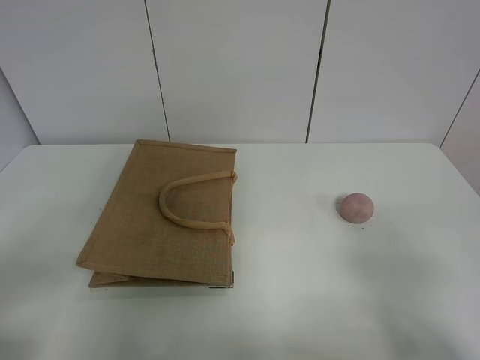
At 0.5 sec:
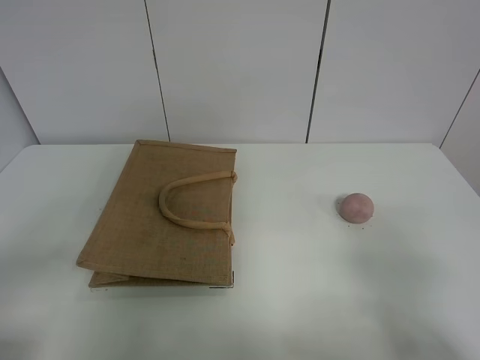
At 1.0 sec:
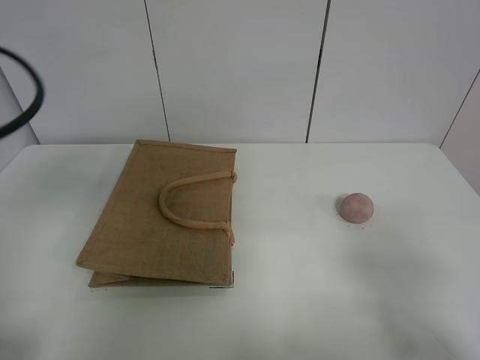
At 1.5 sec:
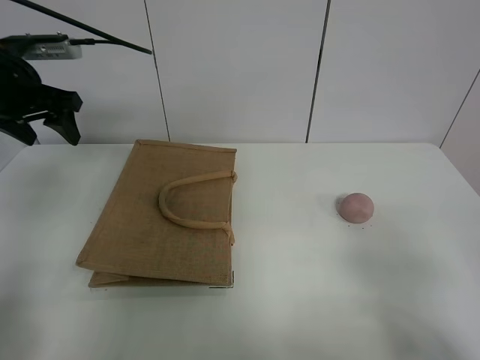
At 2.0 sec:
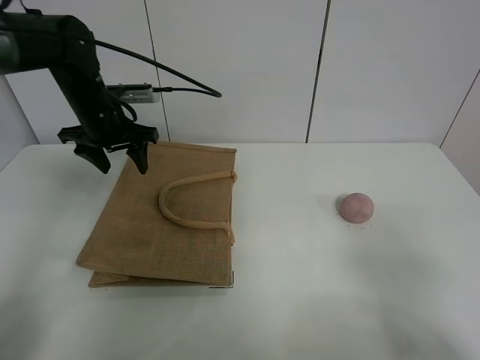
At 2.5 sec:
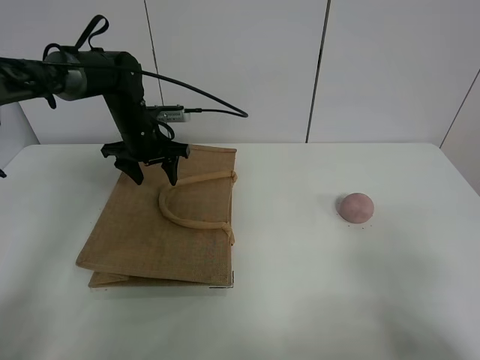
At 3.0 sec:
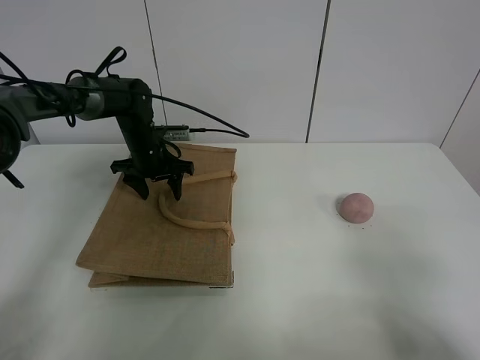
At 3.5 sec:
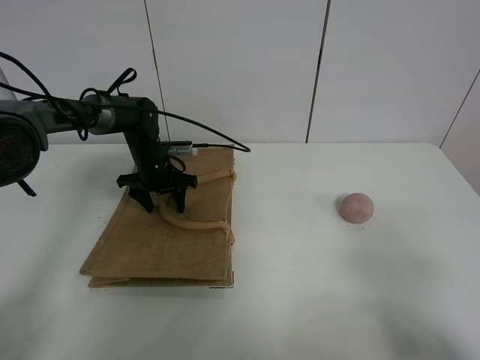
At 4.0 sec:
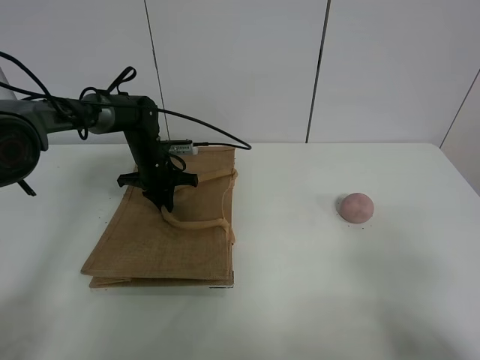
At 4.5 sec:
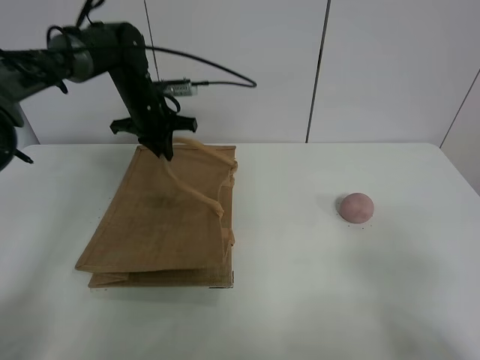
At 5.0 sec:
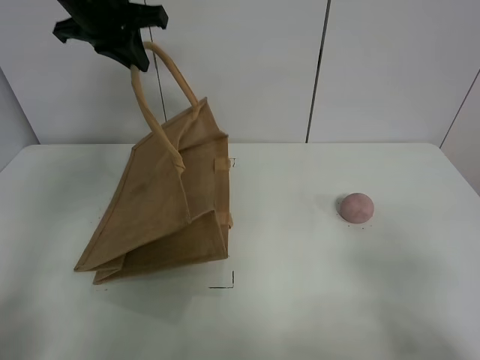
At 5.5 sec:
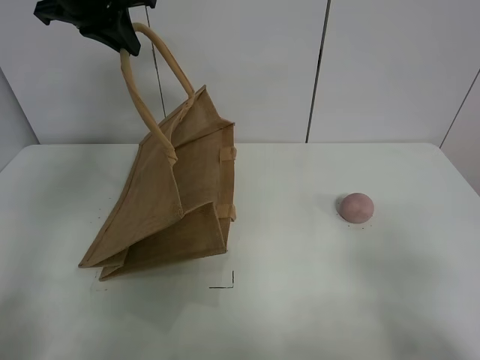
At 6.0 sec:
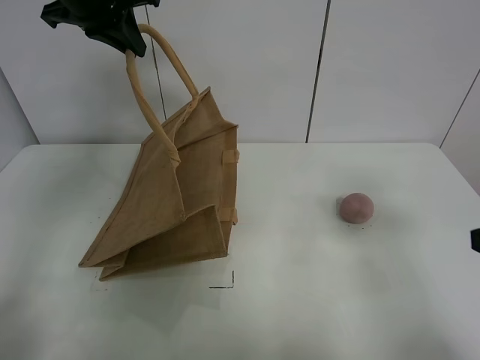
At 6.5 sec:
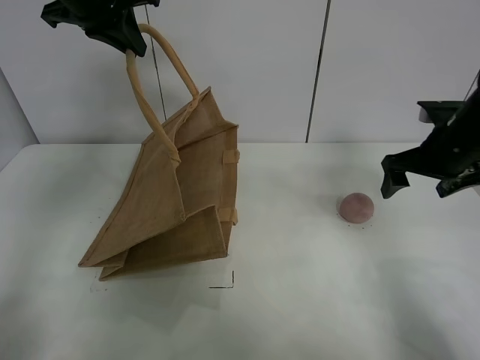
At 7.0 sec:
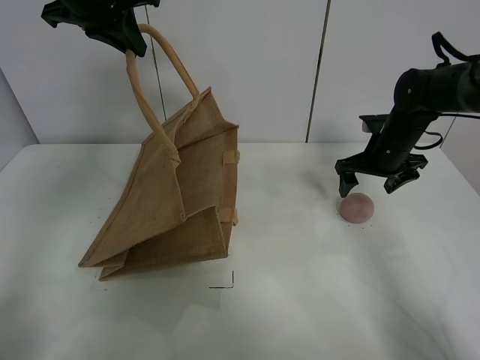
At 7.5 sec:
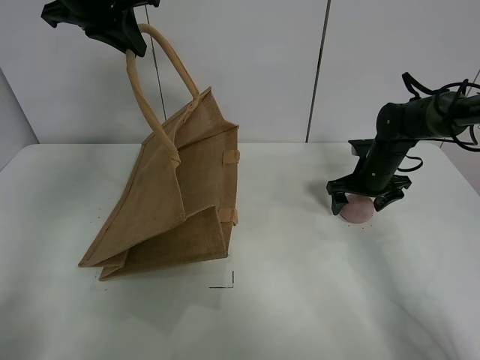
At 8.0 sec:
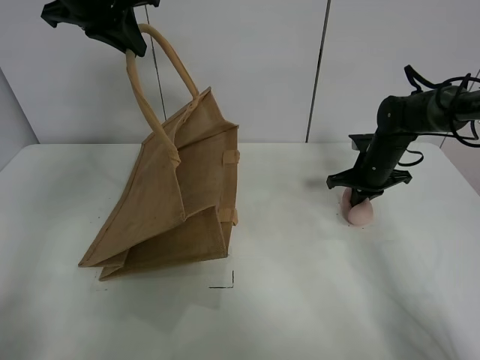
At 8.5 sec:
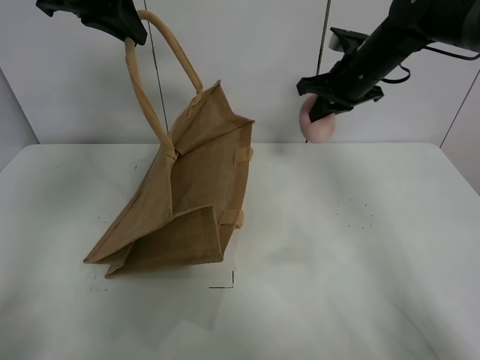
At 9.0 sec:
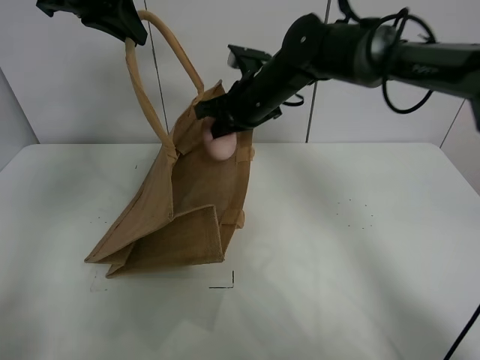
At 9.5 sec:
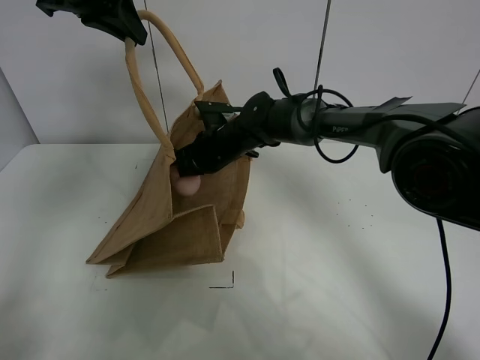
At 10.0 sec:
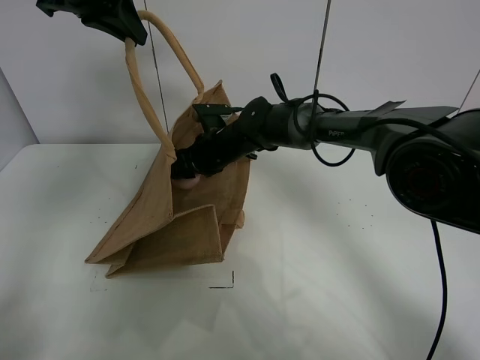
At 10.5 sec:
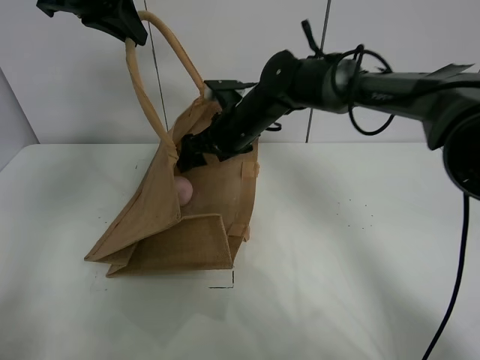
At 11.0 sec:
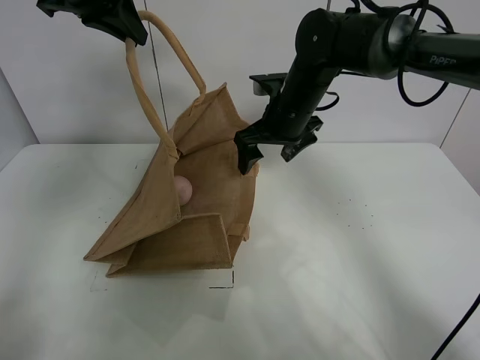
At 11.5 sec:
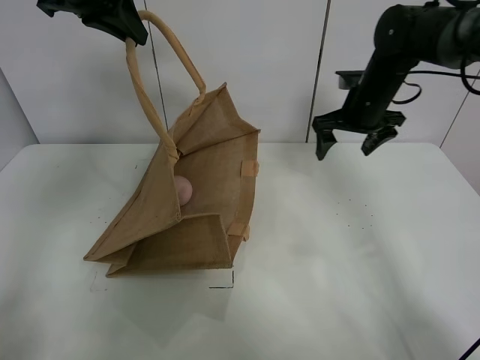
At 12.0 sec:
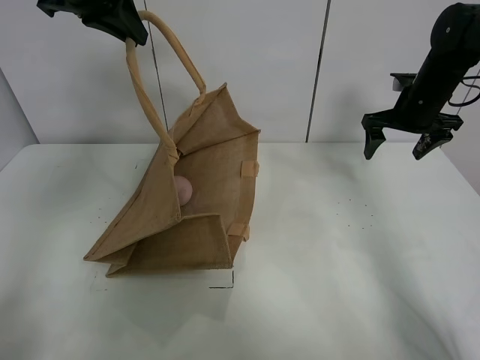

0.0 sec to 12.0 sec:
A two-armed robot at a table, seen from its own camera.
Task of the whole recording: open the brown linen bag and put the peach in the bag.
Step, 0.0 sec to 5.5 sec: Lift the handbag with left gripper.
Step, 6.0 sec to 7.5 sec: Grasp the peach with right gripper.
Step, 8.0 sec to 11.0 sec: Place the peach in the handbag with right gripper.
0.0 sec to 2.0 sec: The left gripper moves forward, roughly 40 cm.
2.0 sec to 4.0 sec: The left gripper moves downward, approximately 15 cm, and closes up.
4.0 sec to 6.0 sec: The left gripper goes some 30 cm upward. Meanwhile the right gripper is displaced forward by some 15 cm.
6.0 sec to 8.0 sec: The right gripper is displaced forward and downward by approximately 35 cm, and closes its fingers.
8.0 sec to 10.0 sec: The right gripper travels to the left by about 30 cm, and opens up.
10.0 sec to 12.0 sec: The right gripper travels to the right by approximately 30 cm.

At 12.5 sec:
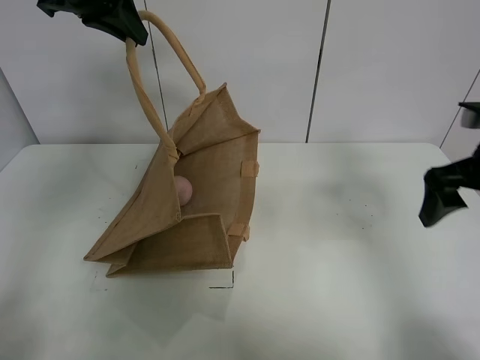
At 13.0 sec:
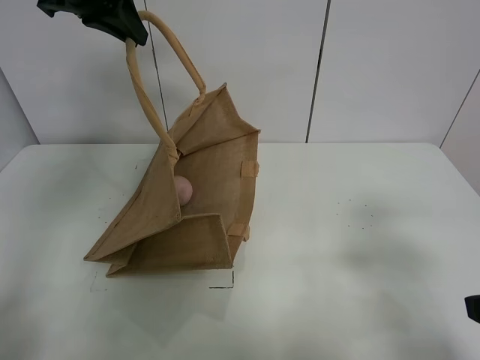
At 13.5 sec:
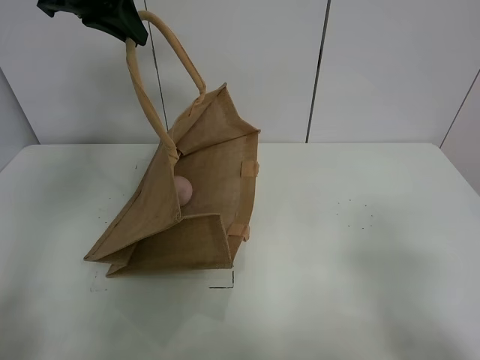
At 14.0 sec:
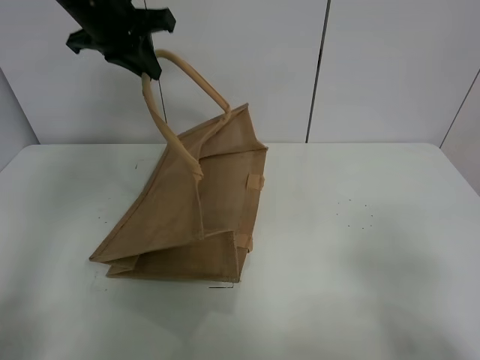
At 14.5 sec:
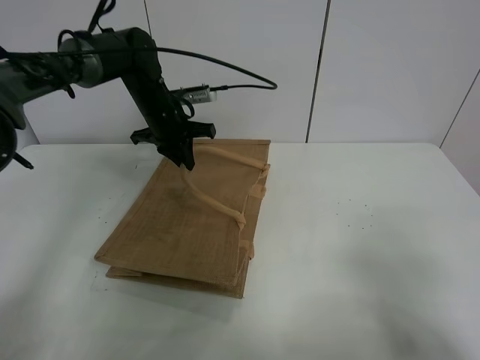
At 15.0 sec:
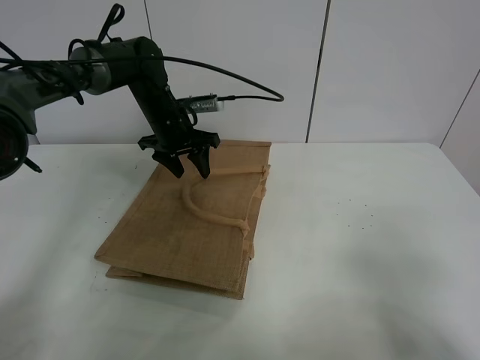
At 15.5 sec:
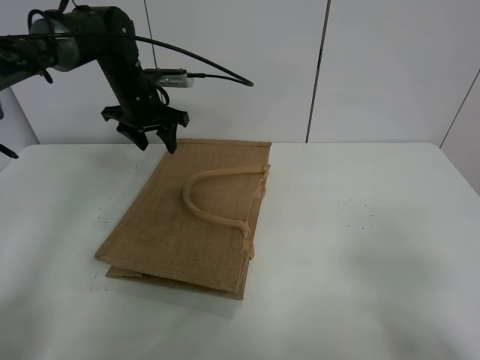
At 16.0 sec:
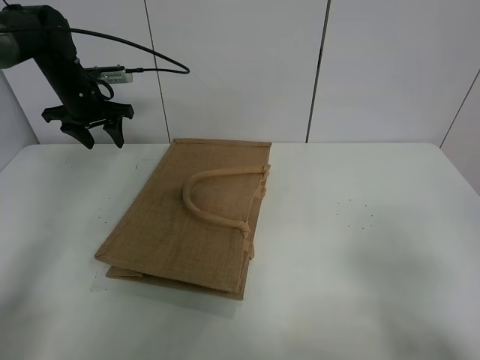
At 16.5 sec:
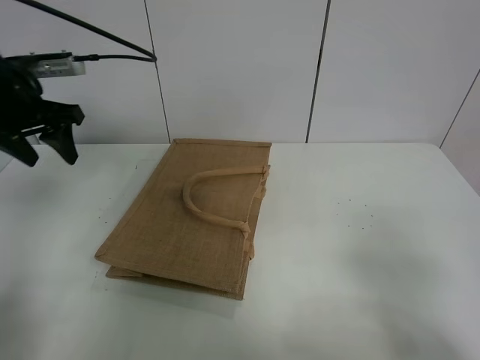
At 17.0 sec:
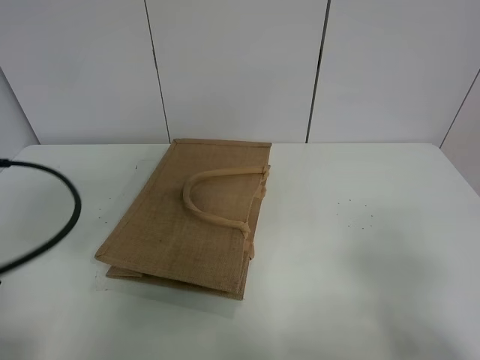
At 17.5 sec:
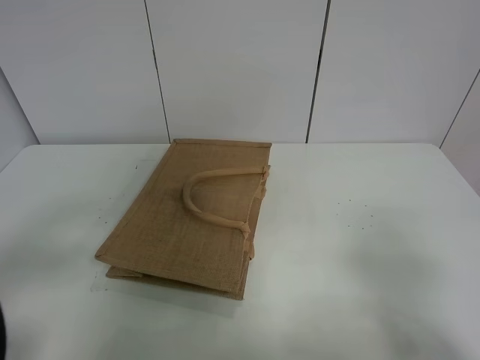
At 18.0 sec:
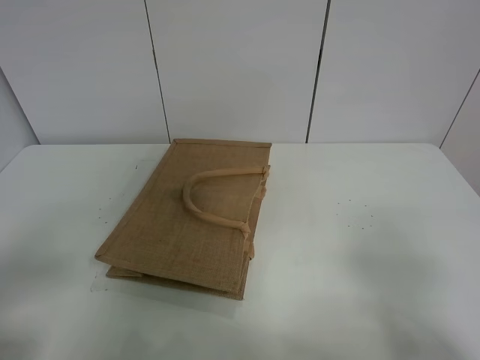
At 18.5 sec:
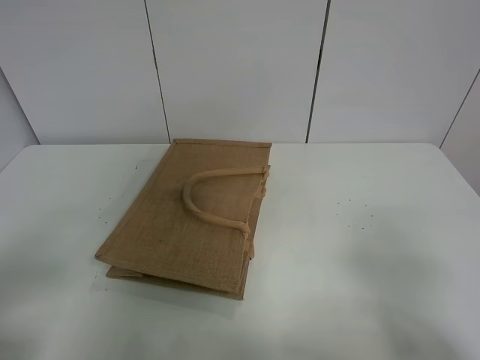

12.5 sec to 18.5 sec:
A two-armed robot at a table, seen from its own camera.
Task of the whole recording: open the brown linen bag and put the peach in the bag.
Step, 12.5 sec to 15.5 sec: Put down the handbag with left grippe.
12.5 sec to 14.5 sec: The right gripper goes roughly 25 cm backward. The left gripper travels downward by about 25 cm.
14.5 sec to 16.5 sec: The left gripper travels to the left, backward and upward by approximately 25 cm, and opens up.
16.5 sec to 18.5 sec: The left gripper moves backward, roughly 30 cm.

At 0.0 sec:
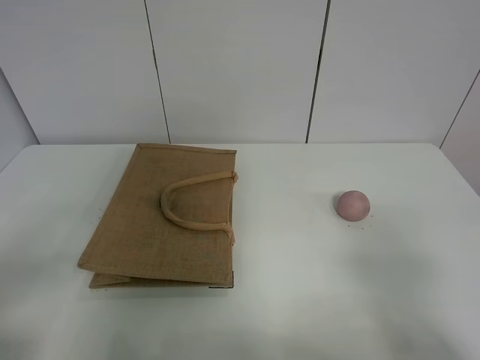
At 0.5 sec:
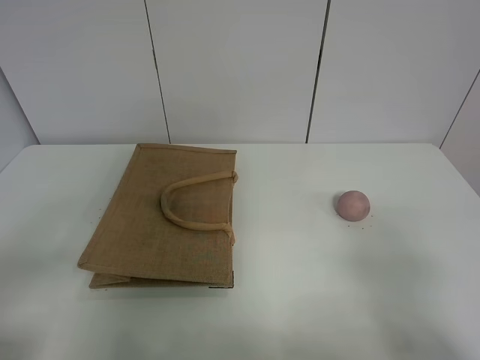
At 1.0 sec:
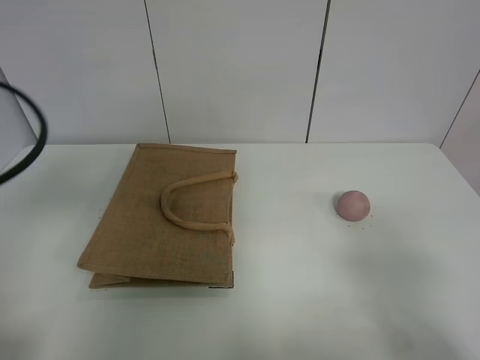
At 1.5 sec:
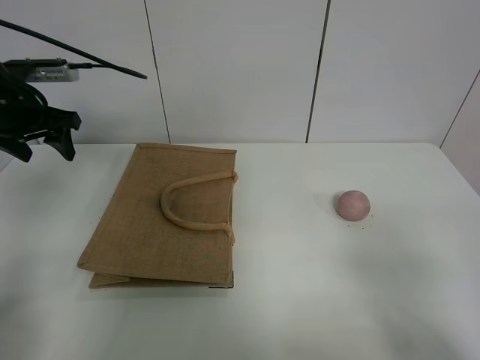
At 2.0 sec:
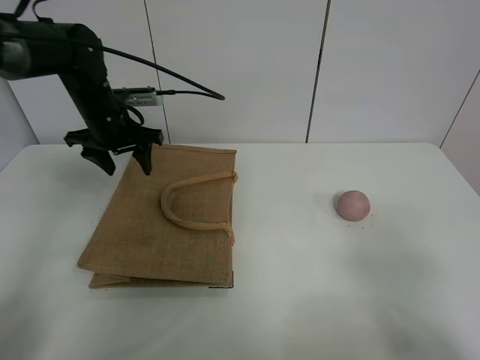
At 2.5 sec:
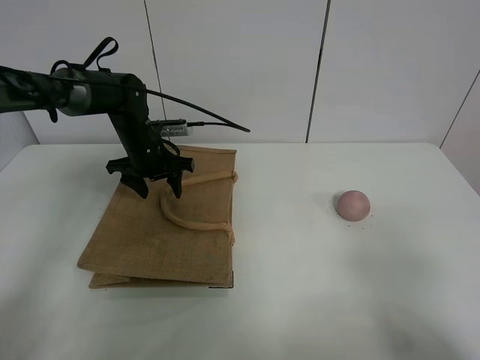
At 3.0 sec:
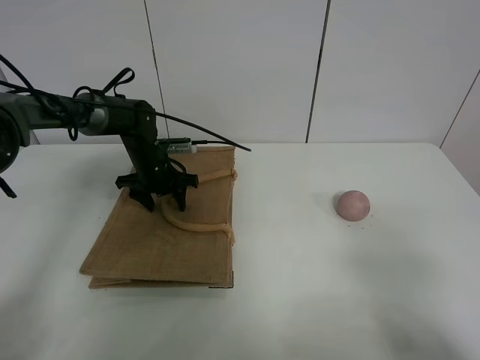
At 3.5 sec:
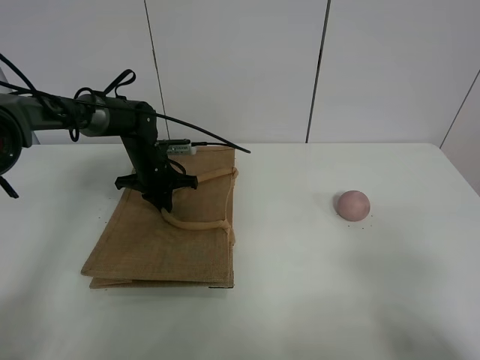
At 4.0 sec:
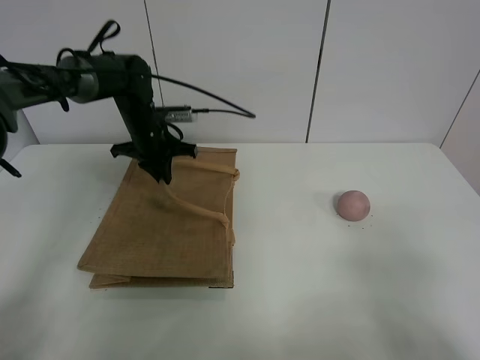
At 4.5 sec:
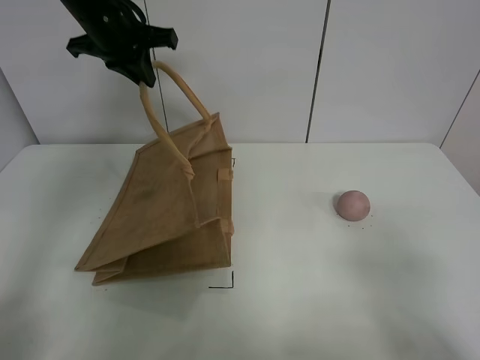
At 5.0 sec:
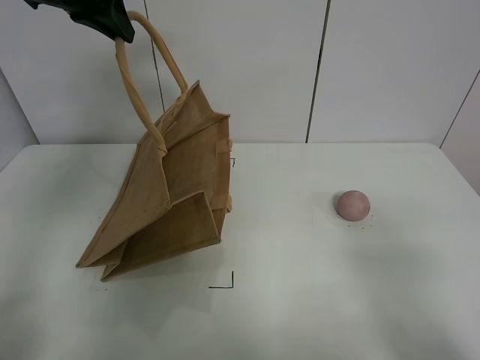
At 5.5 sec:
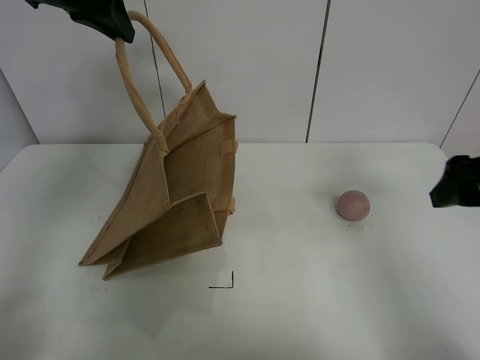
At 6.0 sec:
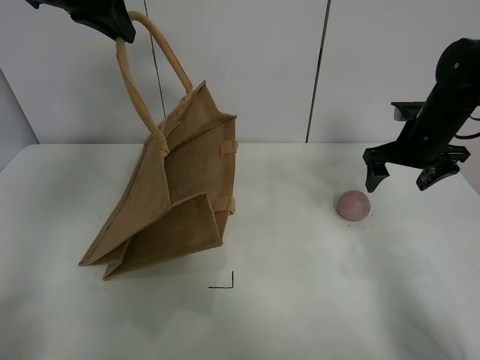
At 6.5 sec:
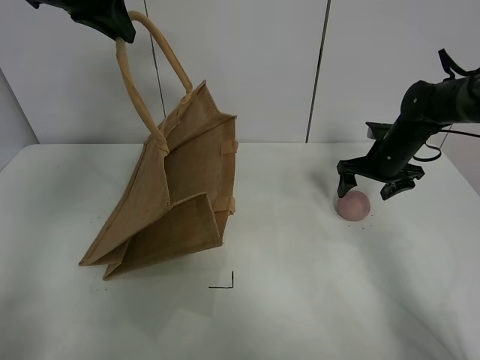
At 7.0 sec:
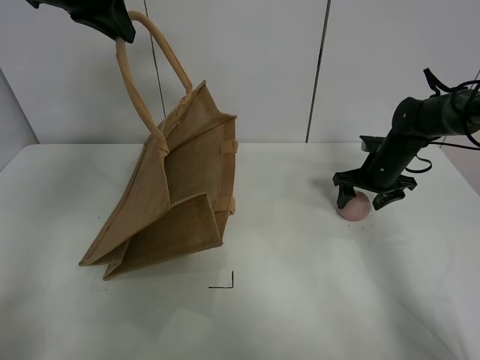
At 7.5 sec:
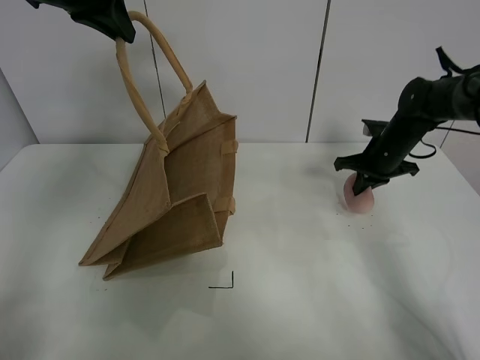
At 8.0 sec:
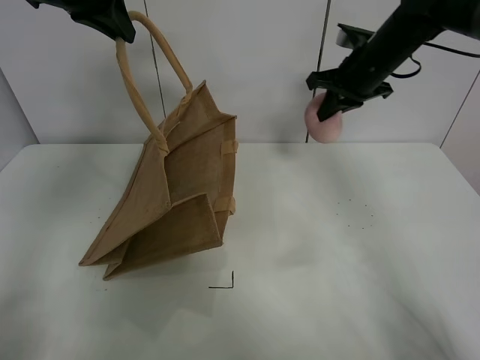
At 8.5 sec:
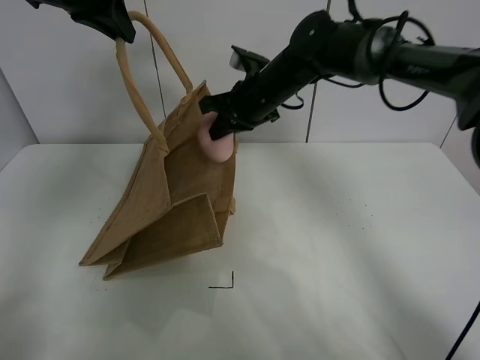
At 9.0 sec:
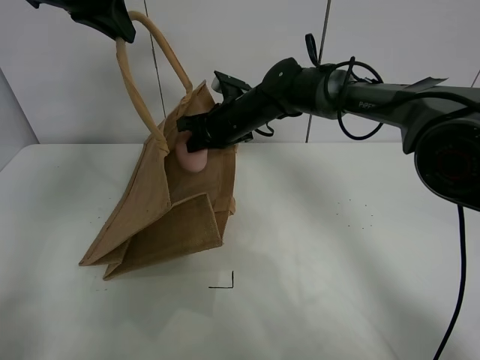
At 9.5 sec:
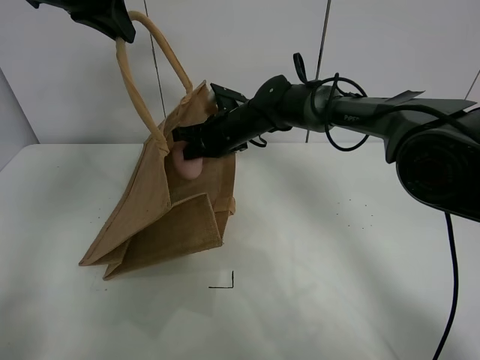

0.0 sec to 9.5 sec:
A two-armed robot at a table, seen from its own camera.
Task of the whole recording: open the brown linen bag and put the peach in the bag.
Step, 0.0 sec to 5.0 sec: Lift the handbag with left gripper.
Step, 5.5 sec to 7.0 sec: Grasp the peach with right gripper.
0.0 sec to 2.0 sec: The left gripper heads forward, covering roughly 40 cm.
2.0 sec to 4.0 sec: The left gripper reaches roughly 10 cm downward, then returns, and closes.
4.0 sec to 5.5 sec: The right gripper shifts approximately 20 cm forward. The left gripper travels upward by approximately 25 cm.
5.5 sec to 7.5 sec: The right gripper shifts about 25 cm forward and downward, and closes its fingers.
7.5 sec to 9.5 sec: The right gripper is displaced to the left by approximately 30 cm.
